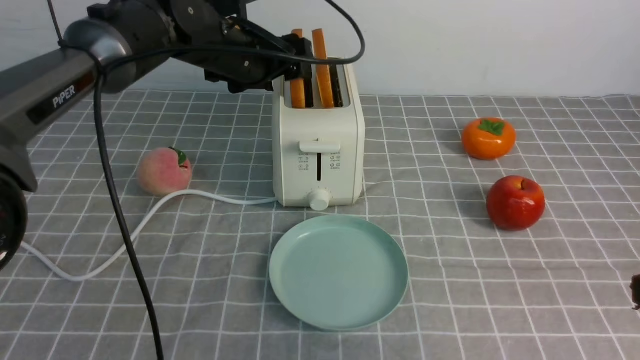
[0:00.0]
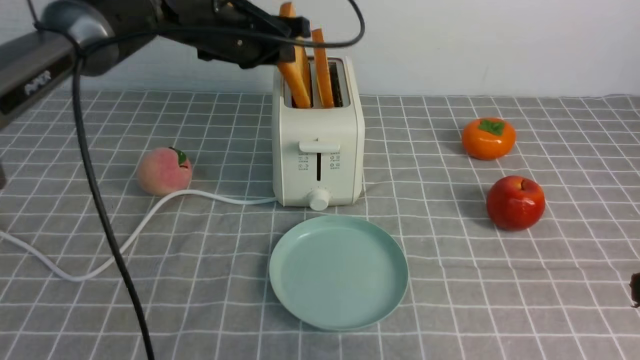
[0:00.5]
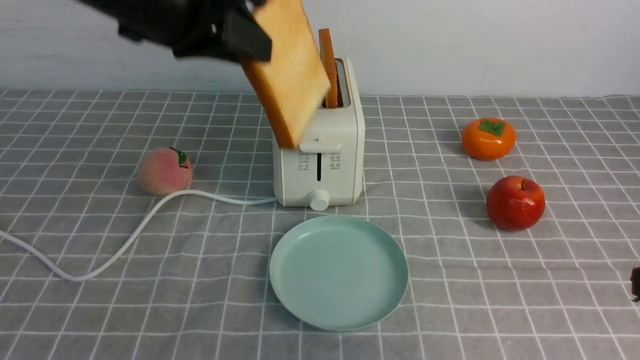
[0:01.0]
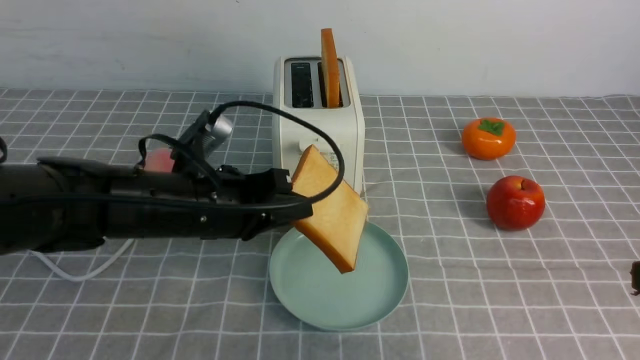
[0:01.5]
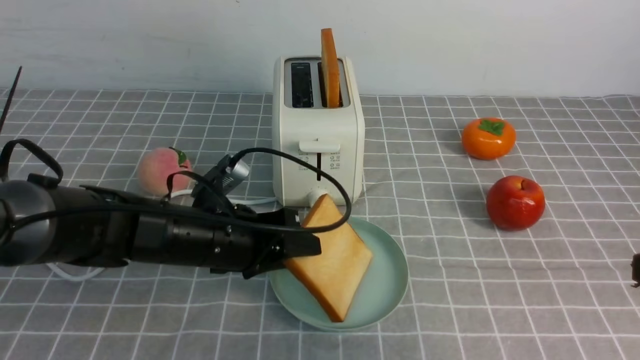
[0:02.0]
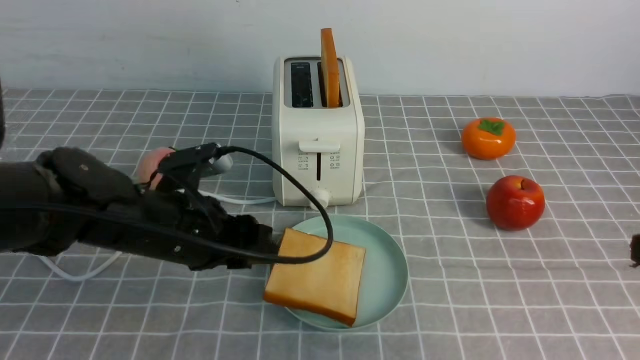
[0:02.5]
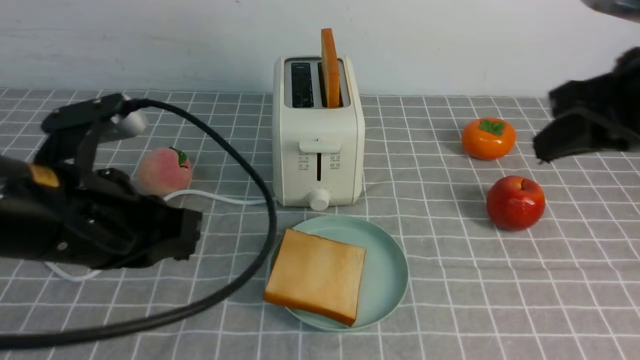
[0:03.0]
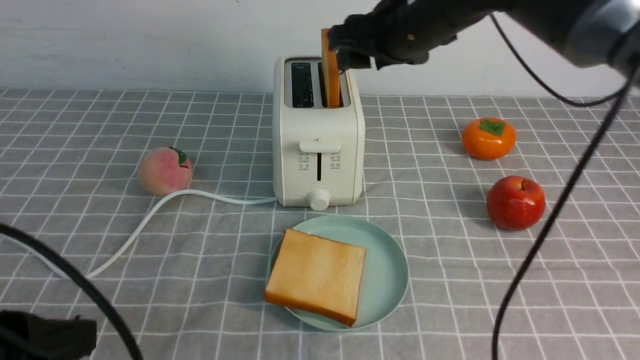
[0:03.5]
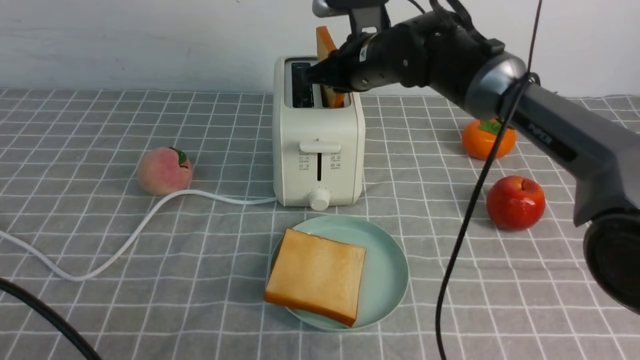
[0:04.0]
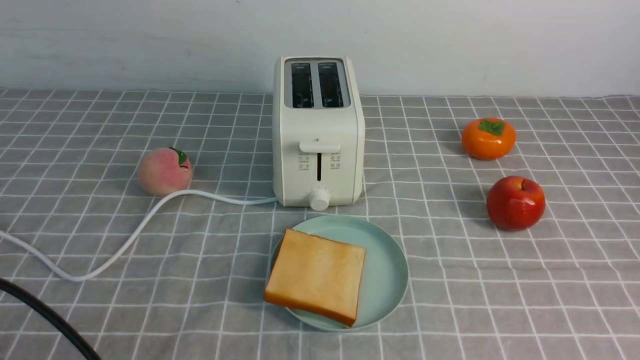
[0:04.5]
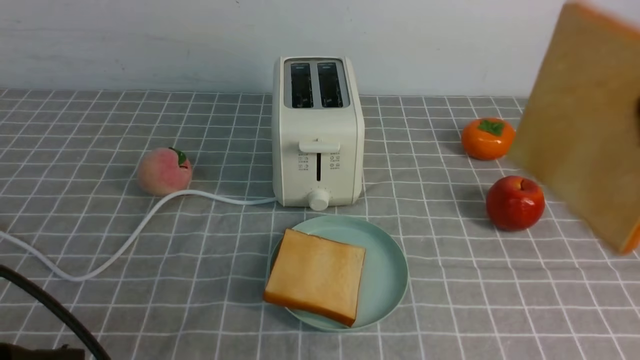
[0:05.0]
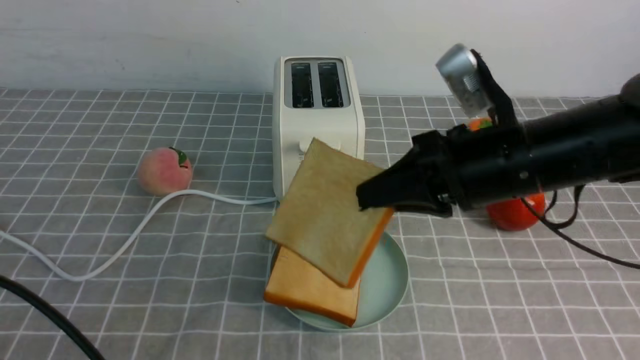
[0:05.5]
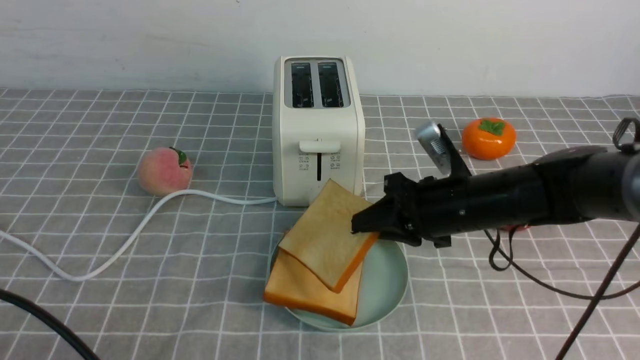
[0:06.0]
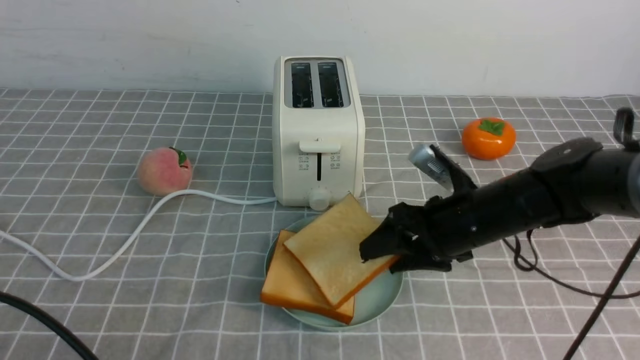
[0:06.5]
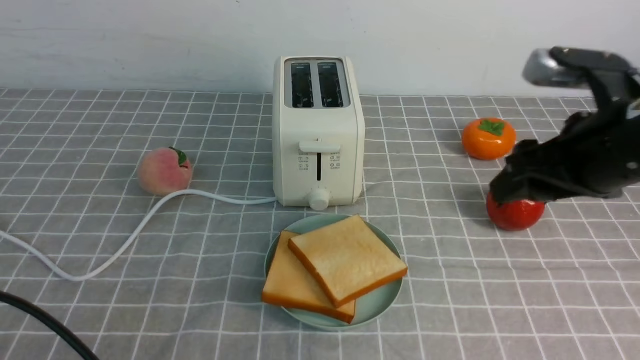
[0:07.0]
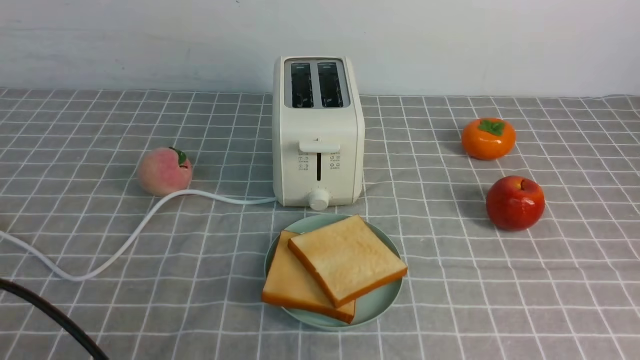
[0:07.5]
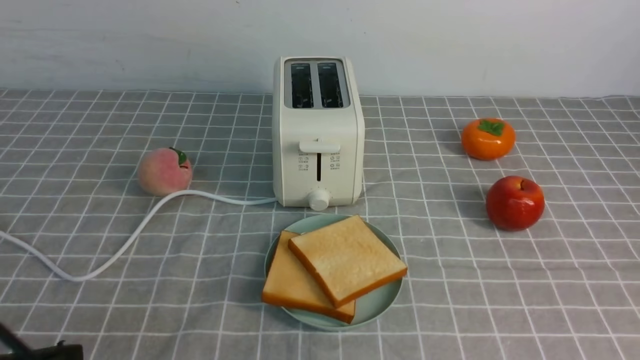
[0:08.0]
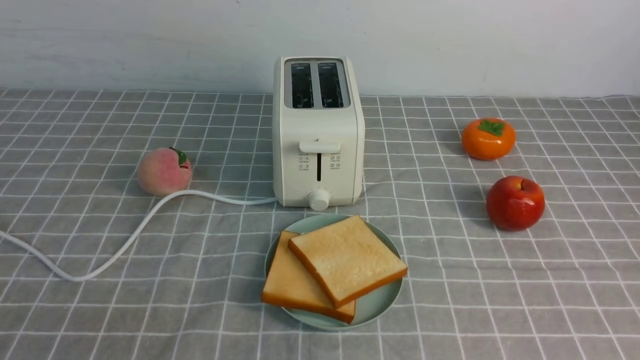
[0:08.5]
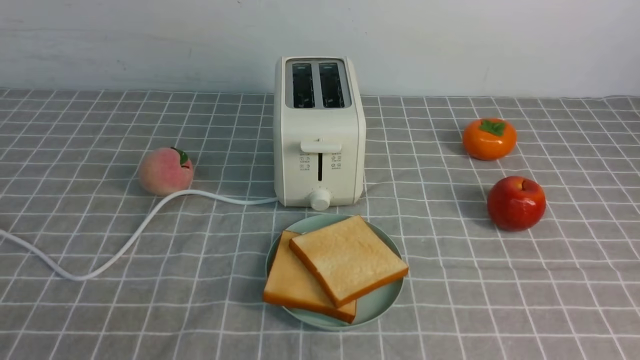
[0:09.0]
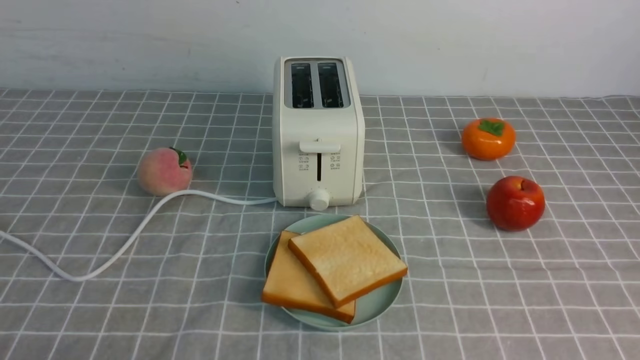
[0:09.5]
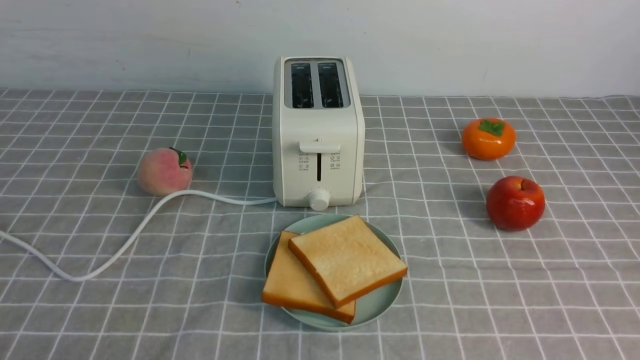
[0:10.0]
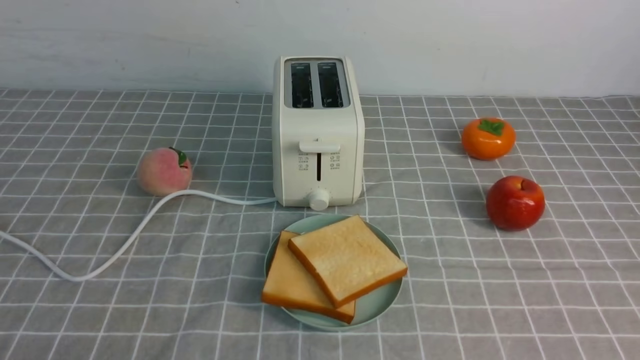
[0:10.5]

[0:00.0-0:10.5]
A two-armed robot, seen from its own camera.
Task of the whole recording: take toasted bread from bread machine on grey coffee table place on plate.
Step, 0:01.0 to 0:02.5: use the left arm to put a slice of bread into the empty plate.
Step, 0:03.0 to 0:04.0: use the right arm to take out a slice of bread.
Step, 0:04.5 to 0:06.5: use the right arm to put a slice of bread into the plate.
0:00.0 to 0:02.0: The left gripper moves backward and downward, some 20 cm, and closes and opens again.
0:02.0 to 0:04.0: The right gripper is displaced forward and to the left by approximately 40 cm, and opens up; the left gripper is displaced backward, upward and to the left by roughly 25 cm, and closes up.
0:04.0 to 0:06.5: The right gripper is displaced backward, downward and to the right by roughly 20 cm, and opens up.
0:06.5 to 0:08.5: The left gripper goes approximately 5 cm backward. Meanwhile the right gripper heads backward and to the right, covering approximately 35 cm, and closes its fingers.

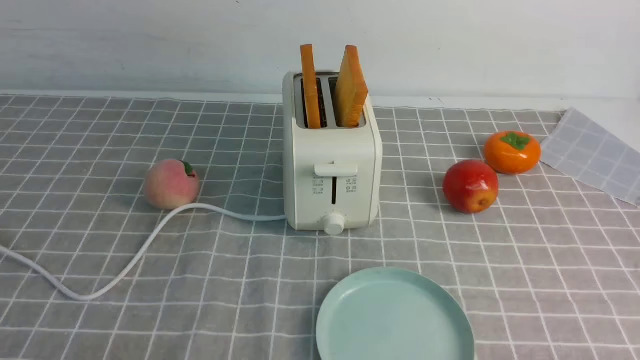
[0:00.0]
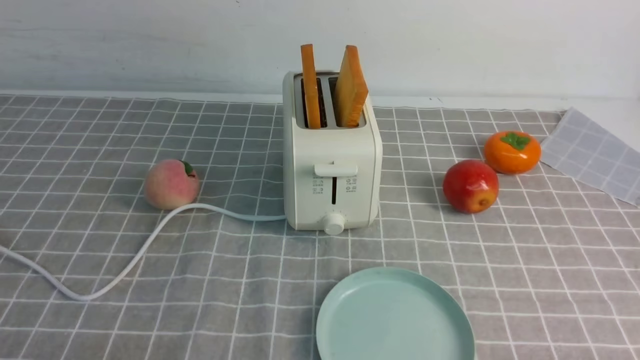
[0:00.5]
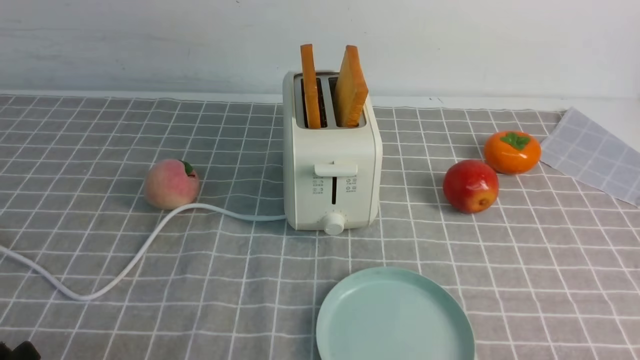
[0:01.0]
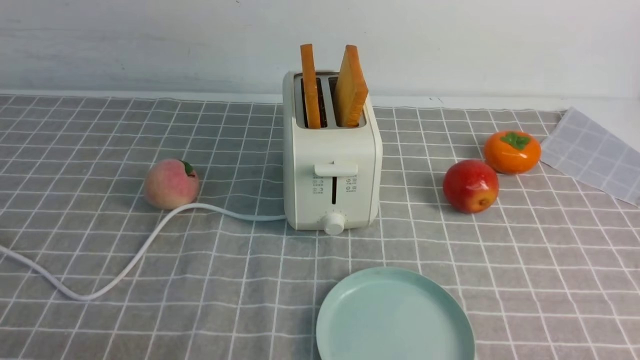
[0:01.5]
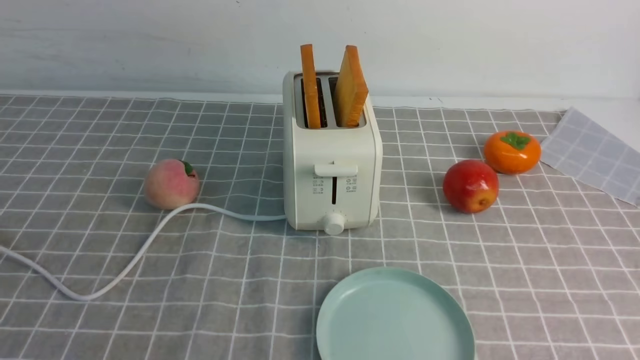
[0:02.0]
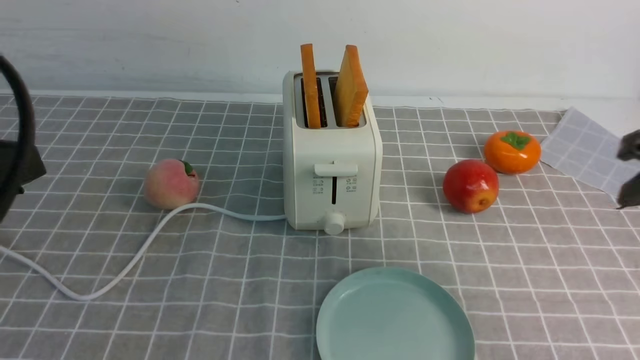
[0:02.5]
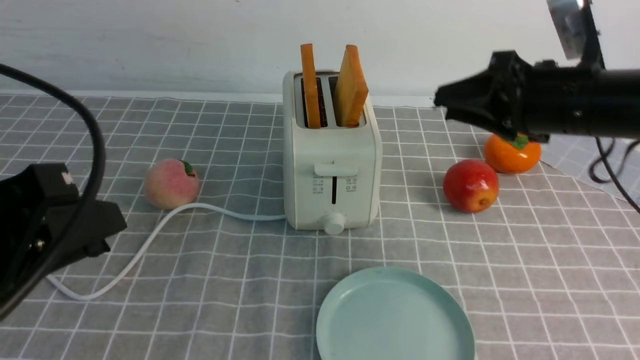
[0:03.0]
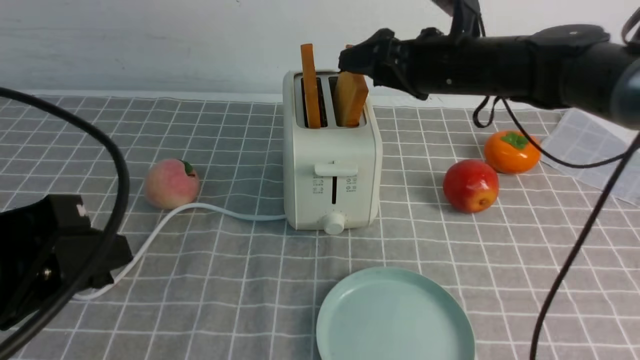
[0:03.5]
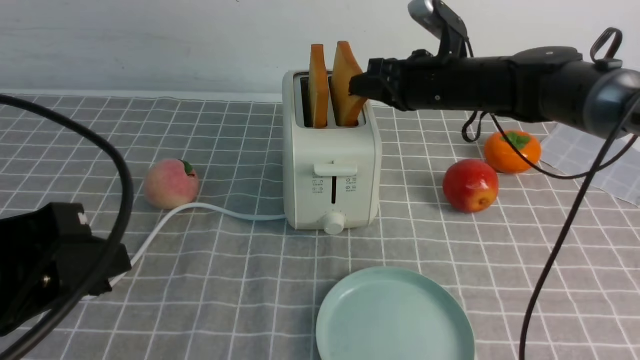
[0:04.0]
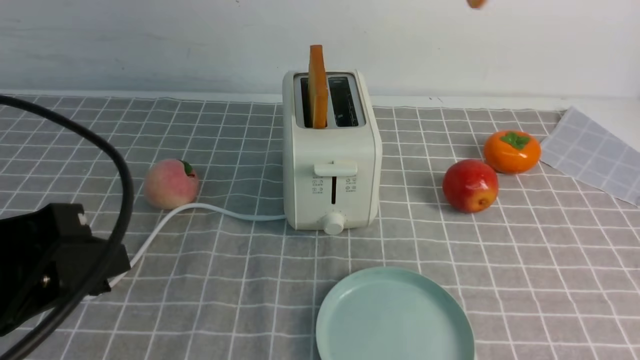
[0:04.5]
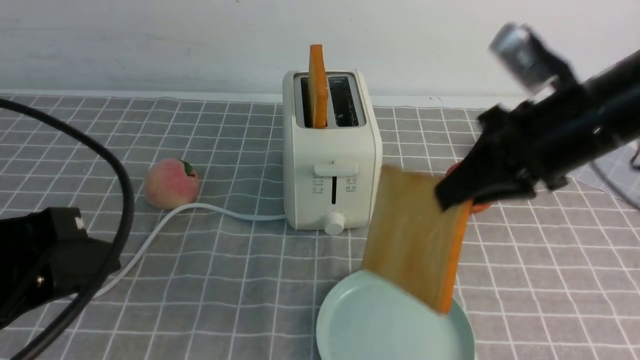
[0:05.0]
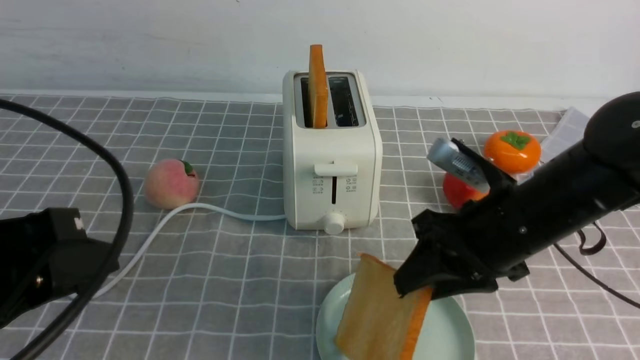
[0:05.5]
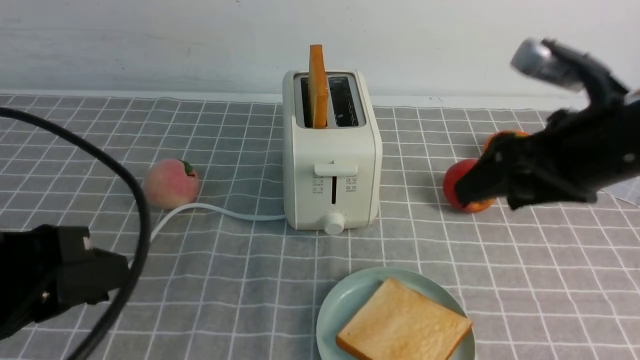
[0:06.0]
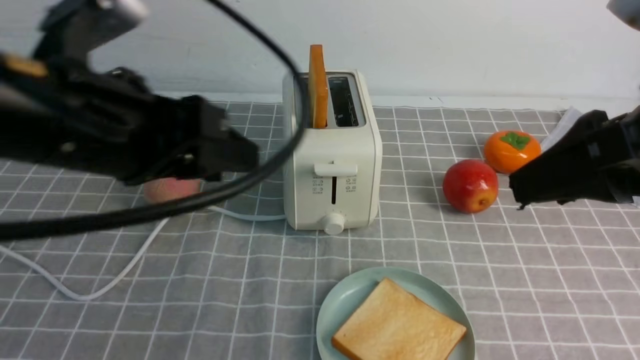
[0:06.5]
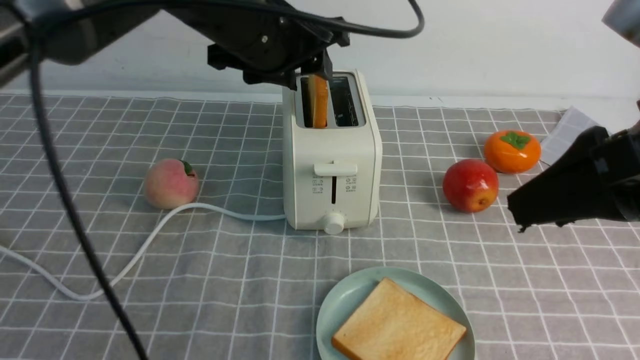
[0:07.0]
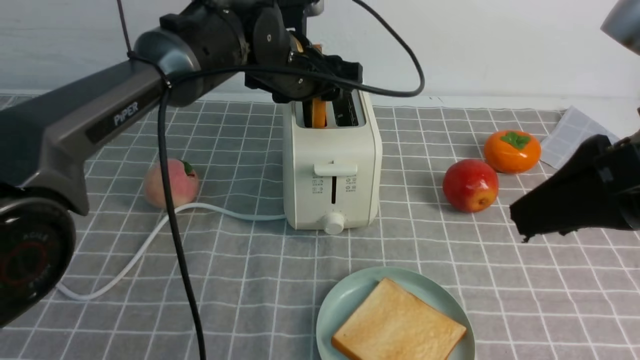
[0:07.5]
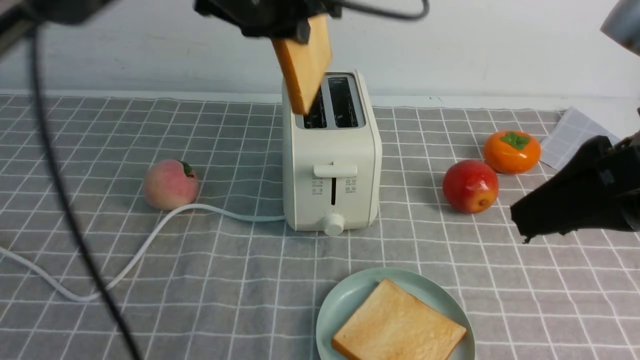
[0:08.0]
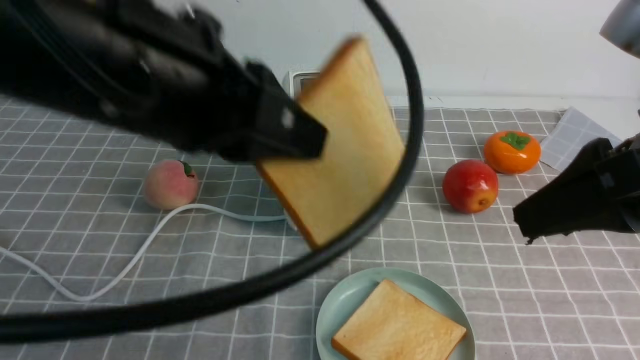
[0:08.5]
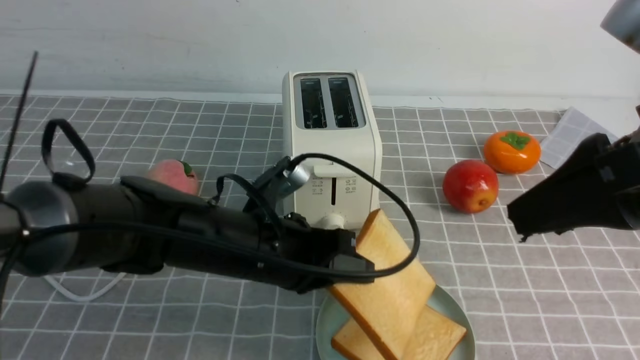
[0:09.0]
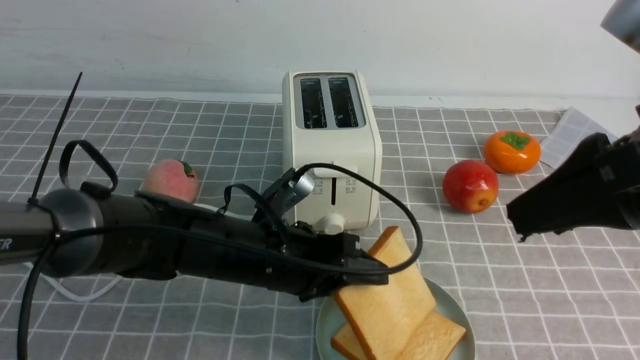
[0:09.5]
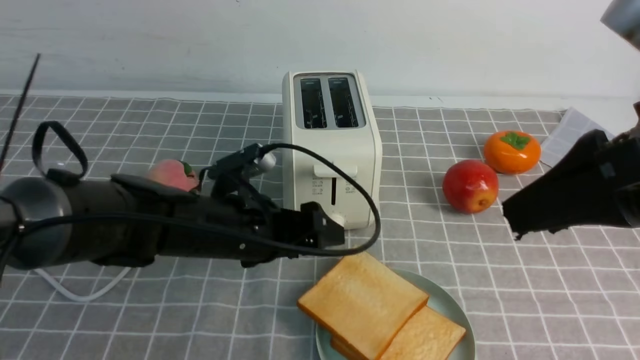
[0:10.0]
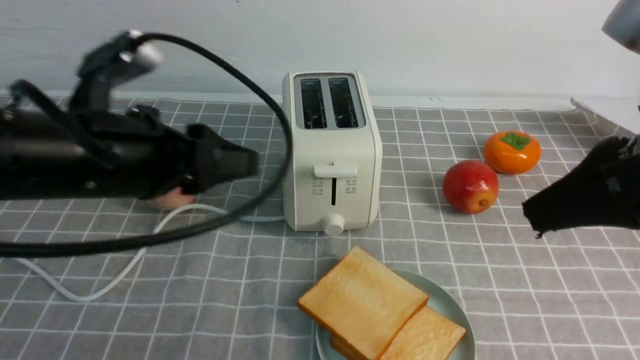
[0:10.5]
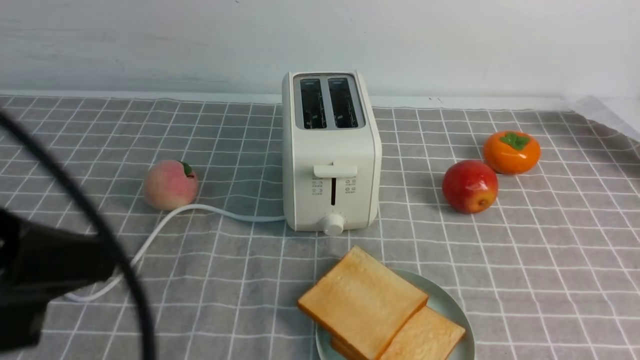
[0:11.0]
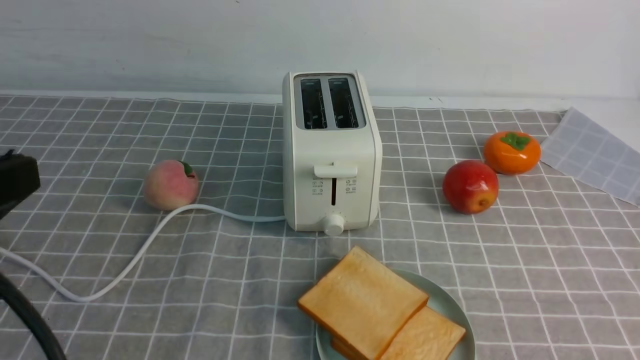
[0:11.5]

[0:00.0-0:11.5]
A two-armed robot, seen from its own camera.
Task of the whole recording: take toasted bread from bread machine on grey coffee table place on plate.
Step, 0:00.0 to 0:04.0: use the right arm to take out a slice of bread.
Step, 0:04.5 to 0:05.5: use the right arm to put a slice of bread into the plate.
Step, 0:06.0 to 0:08.0: use the left arm to take out a slice of bread.
Step, 0:08.5 to 0:10.0: use the left arm to put a slice of bread into the empty plate.
0:02.0 to 0:04.0: The left gripper heads forward, covering some 10 cm, while the right gripper shifts about 40 cm forward and to the left, and opens, then closes again.
0:04.0 to 0:06.0: The right gripper heads backward, covering approximately 20 cm, and opens up.
0:06.0 to 0:07.5: The right gripper heads backward and upward, covering roughly 10 cm, while the left gripper moves forward and to the right, roughly 35 cm.
0:07.5 to 0:09.5: The left gripper travels backward and downward by about 20 cm.
0:09.5 to 0:11.5: The left gripper shifts roughly 30 cm backward, upward and to the left, and closes up; the right gripper moves backward, downward and to the right, approximately 20 cm, and closes its fingers.
